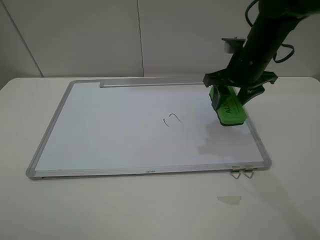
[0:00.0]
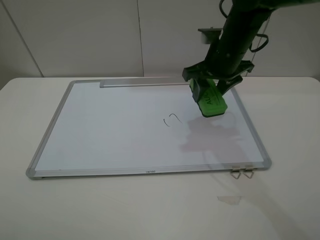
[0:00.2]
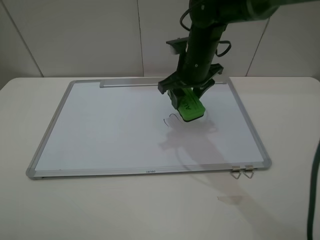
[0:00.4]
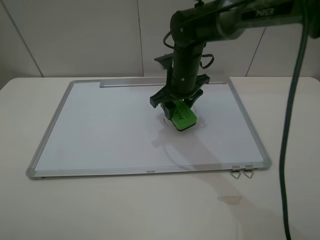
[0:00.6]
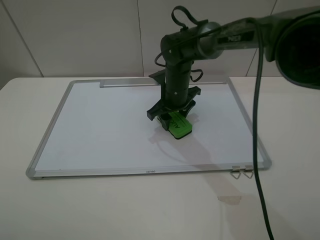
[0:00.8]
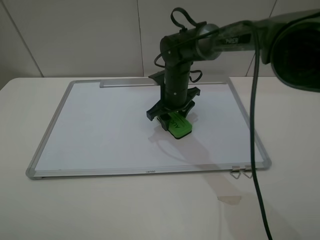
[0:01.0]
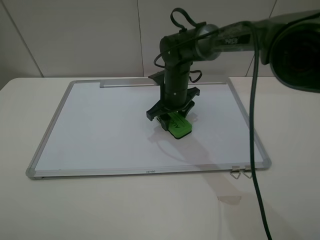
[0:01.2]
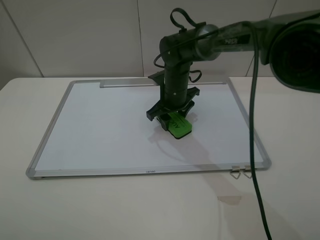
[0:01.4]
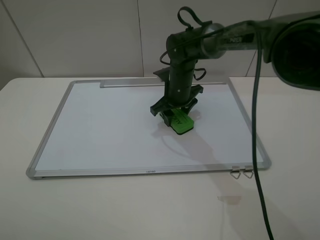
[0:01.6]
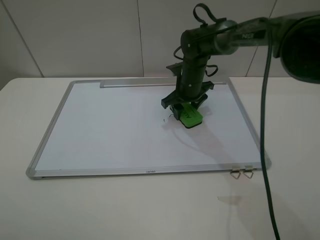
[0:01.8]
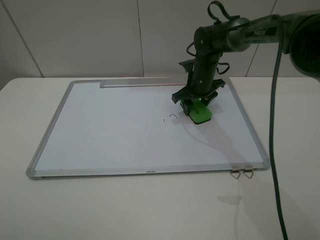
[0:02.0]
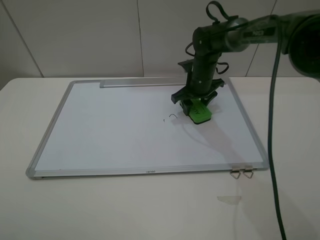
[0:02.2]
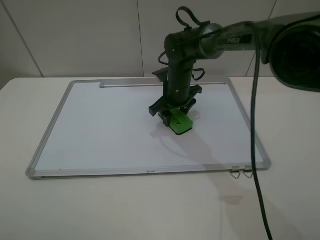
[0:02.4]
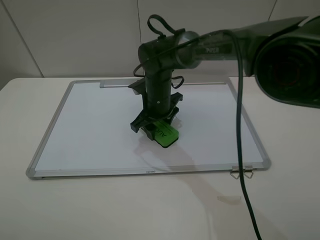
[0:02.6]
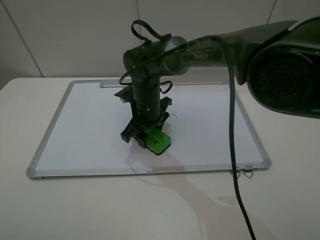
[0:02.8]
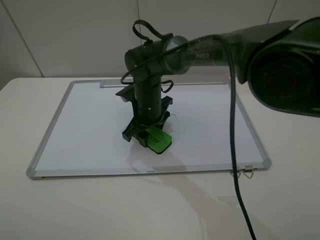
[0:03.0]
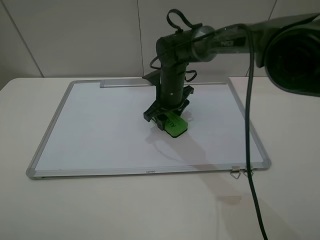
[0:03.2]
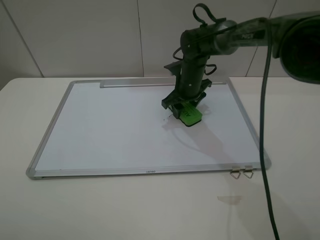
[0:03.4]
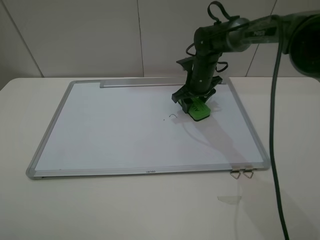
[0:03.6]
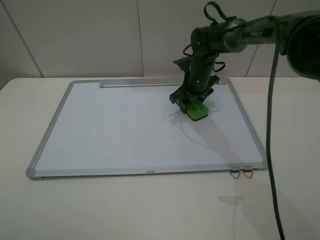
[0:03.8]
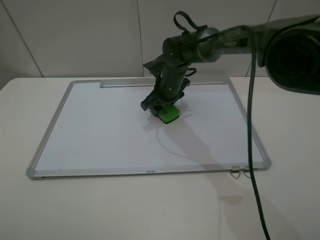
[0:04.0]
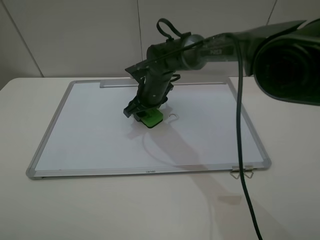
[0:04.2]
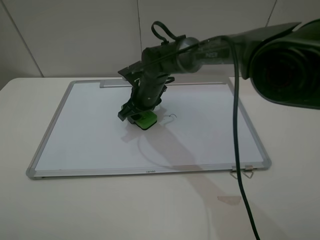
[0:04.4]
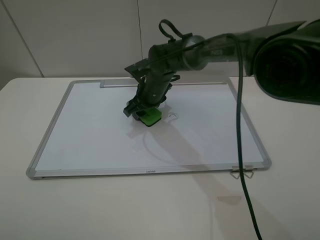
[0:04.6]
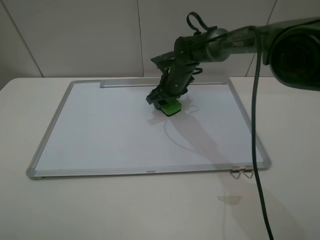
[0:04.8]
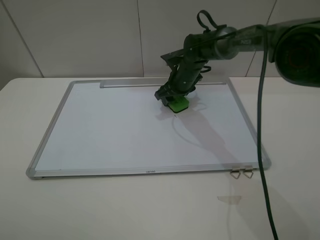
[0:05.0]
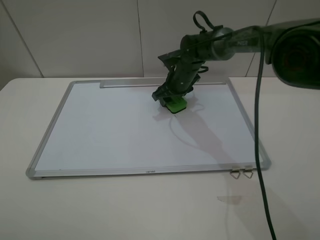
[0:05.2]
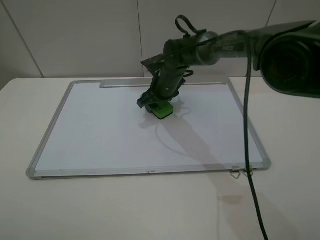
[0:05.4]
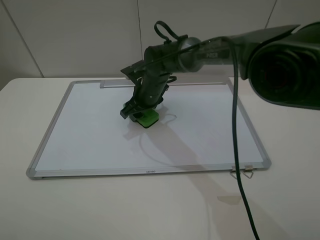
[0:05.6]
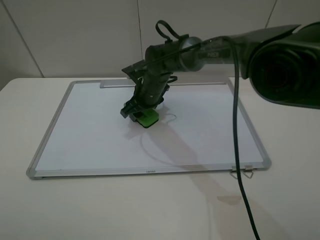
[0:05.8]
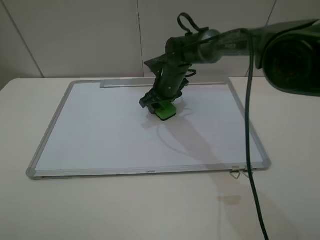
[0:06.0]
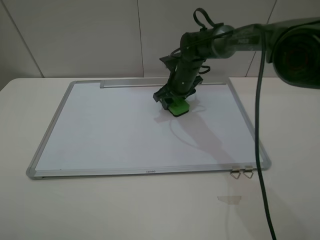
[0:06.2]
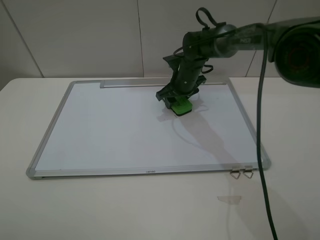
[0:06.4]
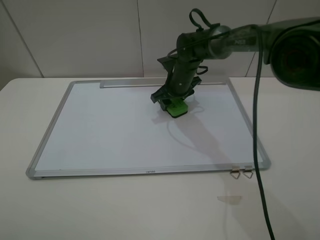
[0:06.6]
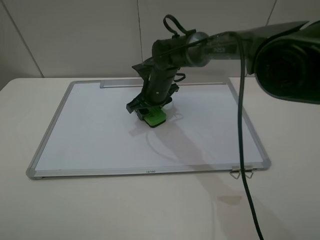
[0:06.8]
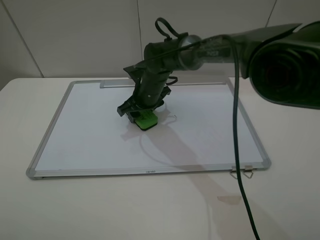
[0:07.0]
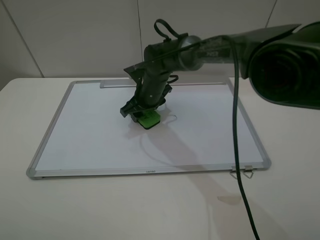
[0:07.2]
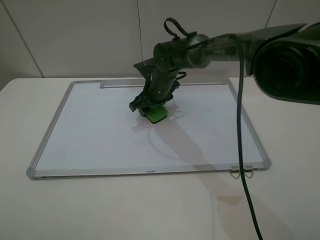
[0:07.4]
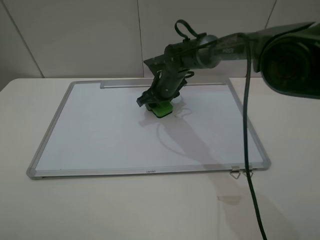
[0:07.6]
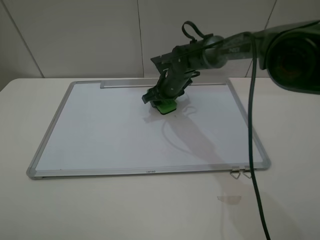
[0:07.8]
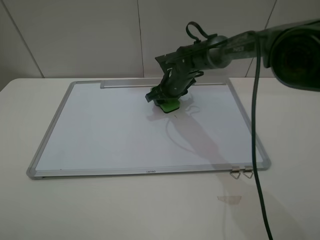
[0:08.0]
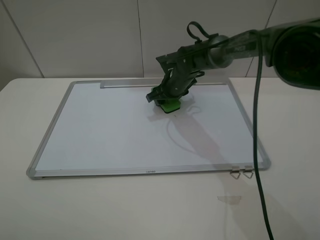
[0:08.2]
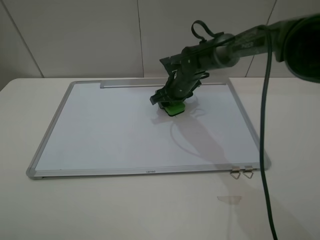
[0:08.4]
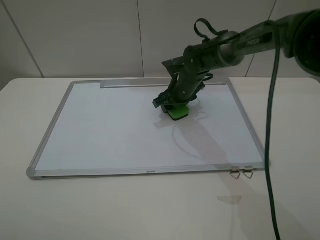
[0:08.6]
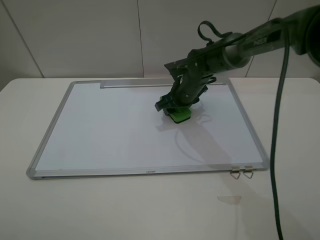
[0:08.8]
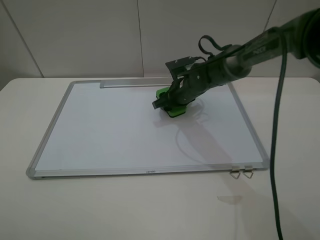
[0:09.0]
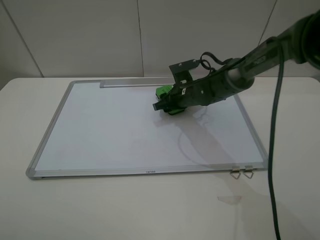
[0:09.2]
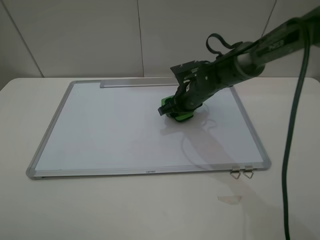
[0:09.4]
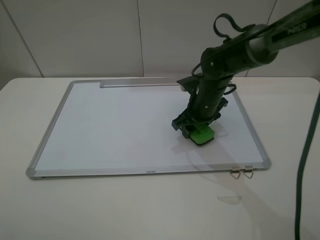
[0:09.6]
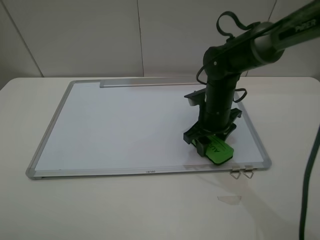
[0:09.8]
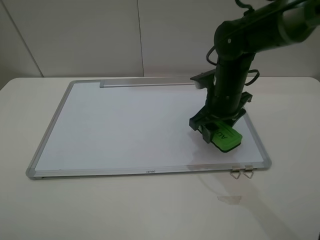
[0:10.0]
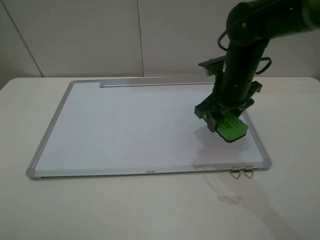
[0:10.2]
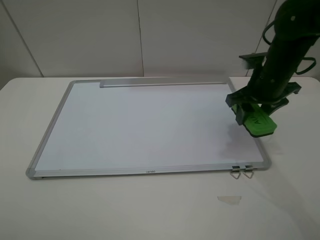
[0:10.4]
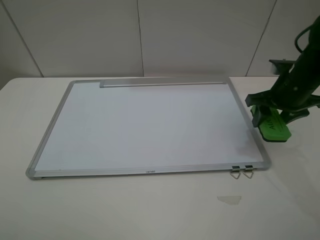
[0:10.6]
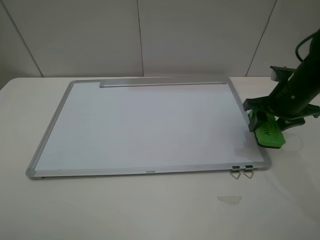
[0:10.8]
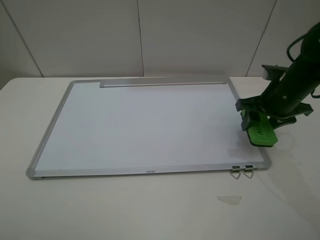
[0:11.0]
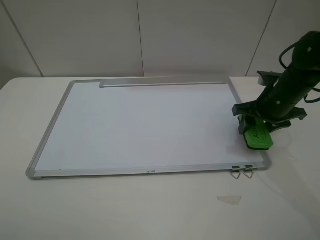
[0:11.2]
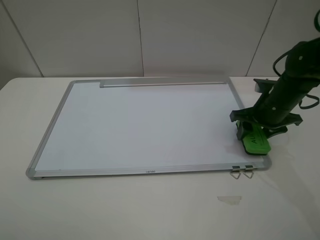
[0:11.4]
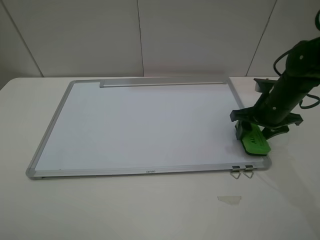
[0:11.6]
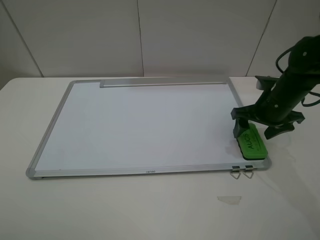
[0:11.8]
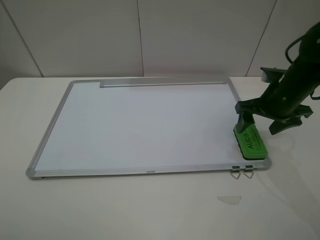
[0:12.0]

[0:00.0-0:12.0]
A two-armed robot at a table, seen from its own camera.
Step, 0:00.0 to 0:09.0: Grasp the eraser and wipe the blackboard with the right gripper.
Step, 0:09.2 to 0:12.0: Place the eraser with the right gripper.
0:00.0 to 0:01.6: The right gripper goes some 15 cm downward, to the left and forward.
0:01.6 to 0:03.0: The right gripper travels to the left and backward by roughly 10 cm.
0:03.0 to 0:04.4: The right gripper travels to the right and back again, roughly 15 cm each way.
0:04.4 to 0:06.0: The right gripper swings left and right, about 10 cm each way, with 2 reversals.
0:06.0 to 0:07.6: The right gripper travels to the left and back again, roughly 5 cm each way.
0:07.6 to 0:09.0: The grippers make only small movements.
0:09.0 to 0:10.4: The right gripper shifts approximately 25 cm to the right, upward and backward.
0:10.4 to 0:12.0: The right gripper opens up.

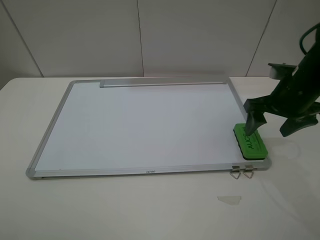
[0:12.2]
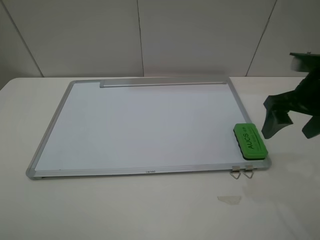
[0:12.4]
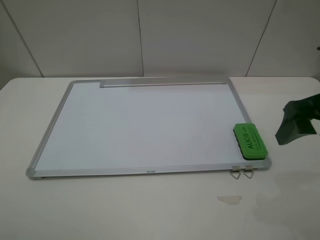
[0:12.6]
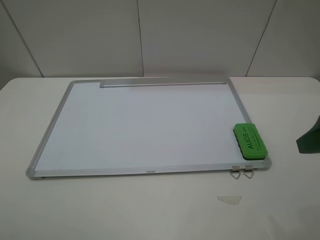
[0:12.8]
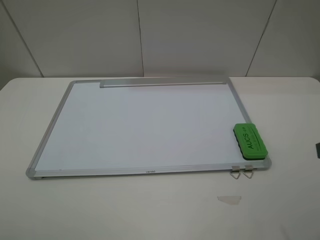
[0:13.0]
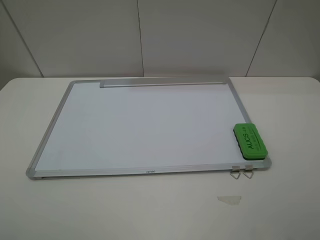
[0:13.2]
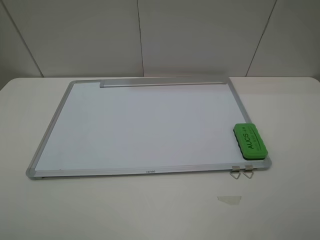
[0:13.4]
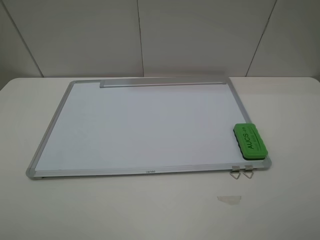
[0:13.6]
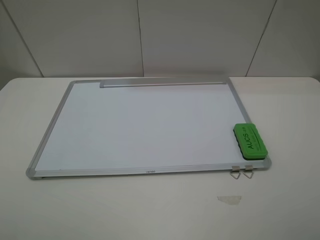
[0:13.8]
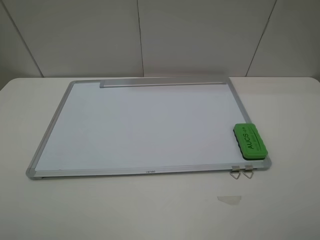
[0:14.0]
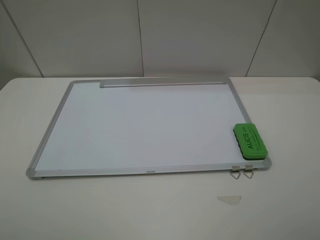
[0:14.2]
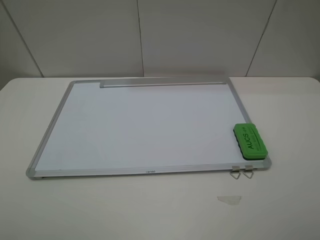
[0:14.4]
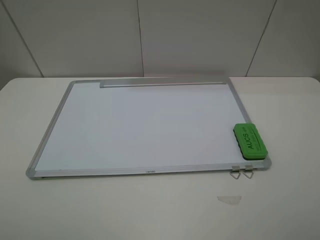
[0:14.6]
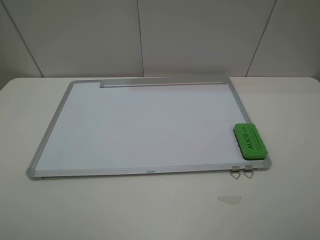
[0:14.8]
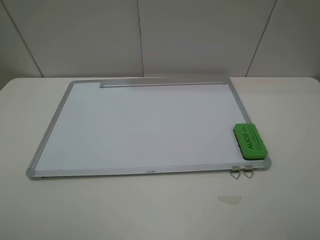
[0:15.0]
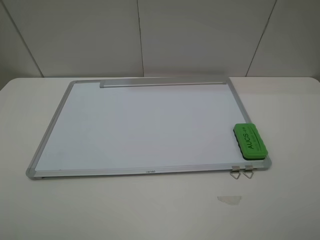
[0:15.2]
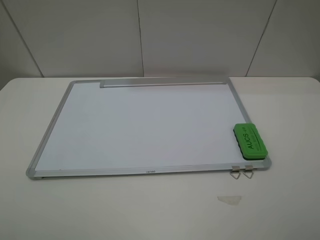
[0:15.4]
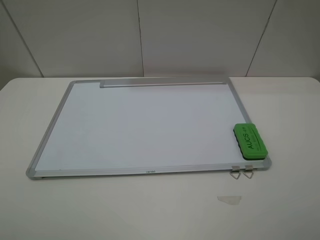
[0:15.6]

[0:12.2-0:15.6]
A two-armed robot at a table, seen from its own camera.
0:12.2 to 0:13.8: The right gripper travels backward by approximately 25 cm.
0:13.8 to 0:15.6: Neither gripper changes place.
